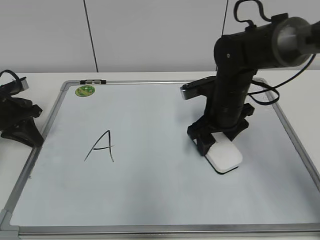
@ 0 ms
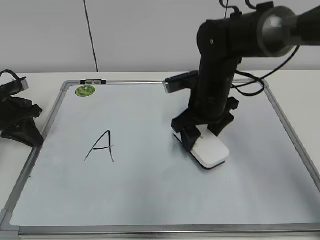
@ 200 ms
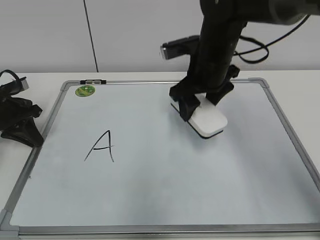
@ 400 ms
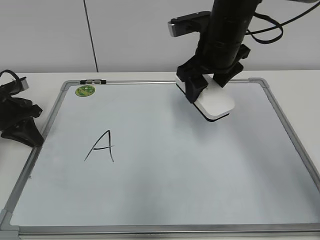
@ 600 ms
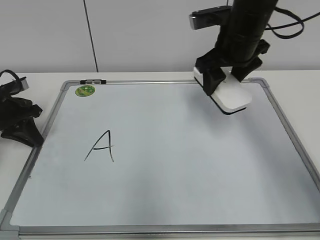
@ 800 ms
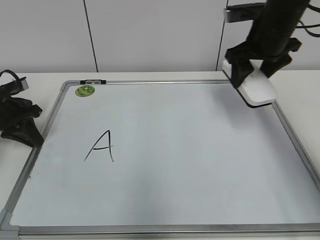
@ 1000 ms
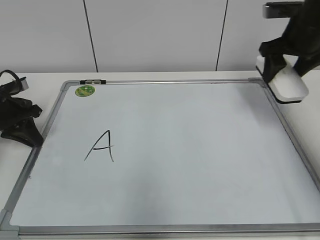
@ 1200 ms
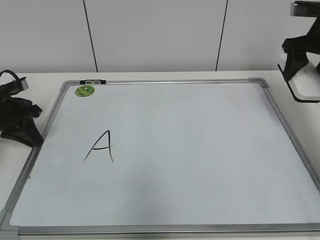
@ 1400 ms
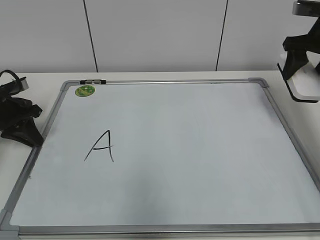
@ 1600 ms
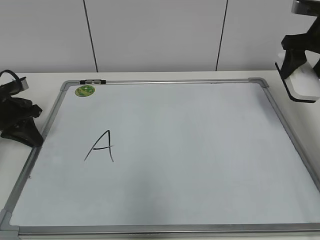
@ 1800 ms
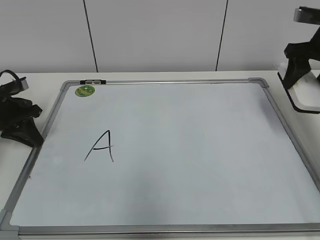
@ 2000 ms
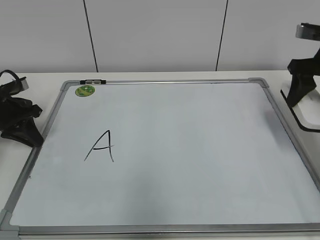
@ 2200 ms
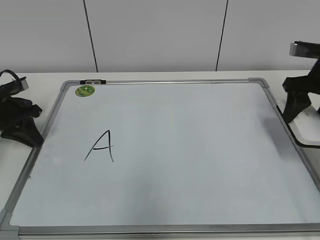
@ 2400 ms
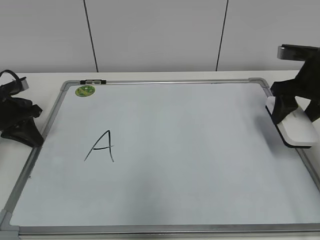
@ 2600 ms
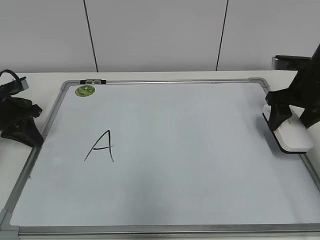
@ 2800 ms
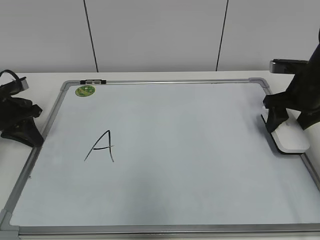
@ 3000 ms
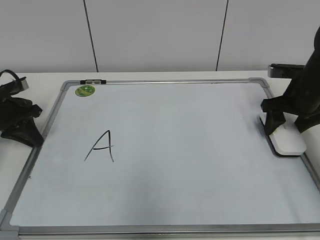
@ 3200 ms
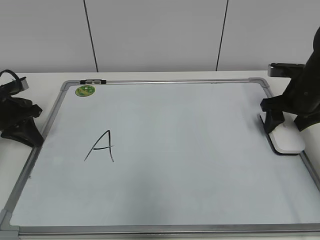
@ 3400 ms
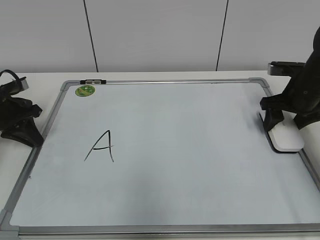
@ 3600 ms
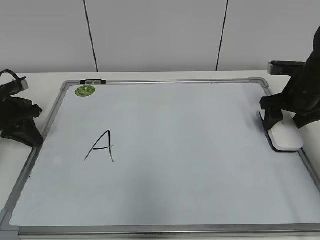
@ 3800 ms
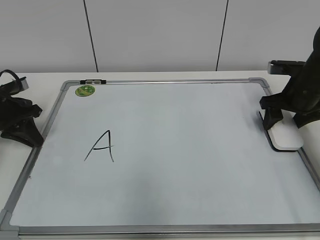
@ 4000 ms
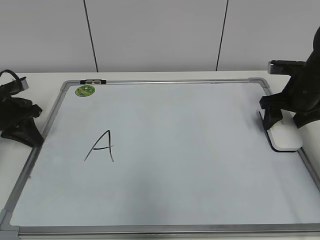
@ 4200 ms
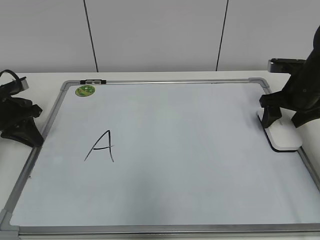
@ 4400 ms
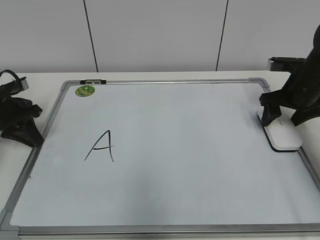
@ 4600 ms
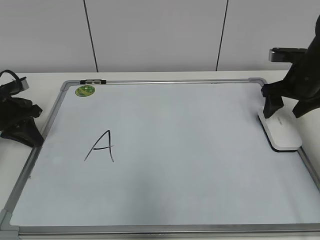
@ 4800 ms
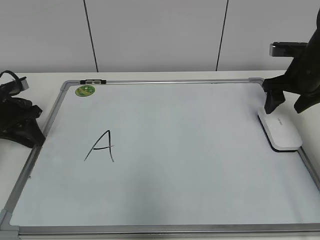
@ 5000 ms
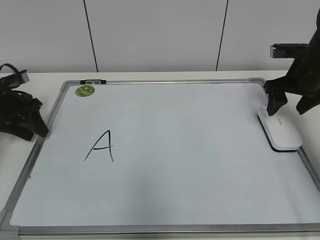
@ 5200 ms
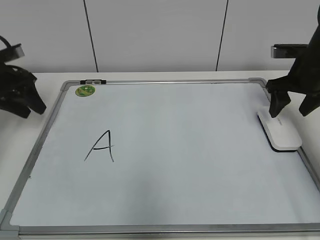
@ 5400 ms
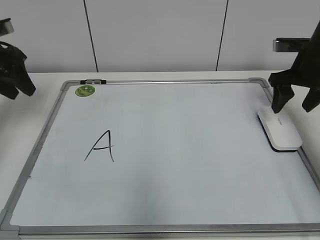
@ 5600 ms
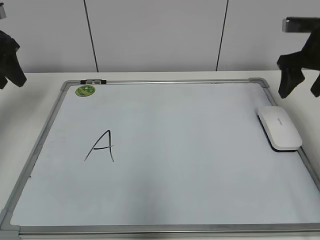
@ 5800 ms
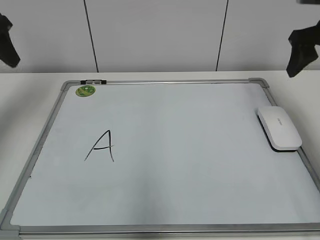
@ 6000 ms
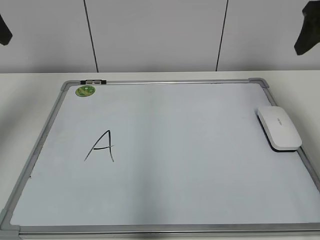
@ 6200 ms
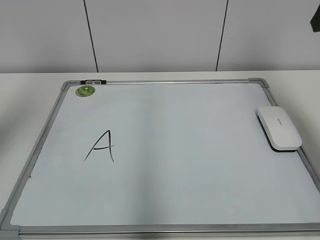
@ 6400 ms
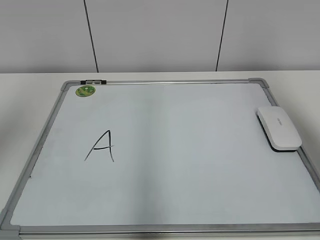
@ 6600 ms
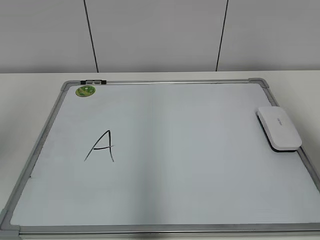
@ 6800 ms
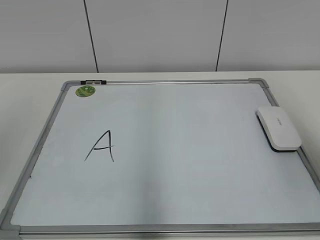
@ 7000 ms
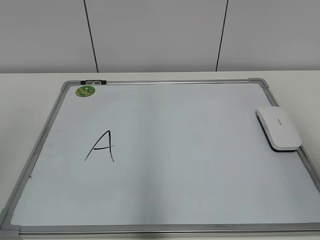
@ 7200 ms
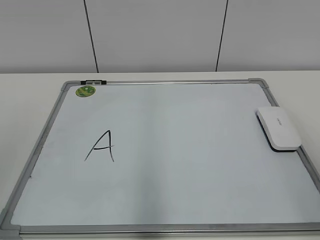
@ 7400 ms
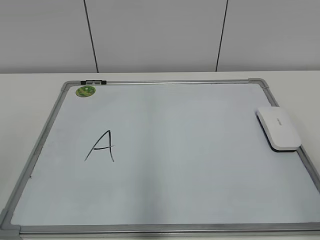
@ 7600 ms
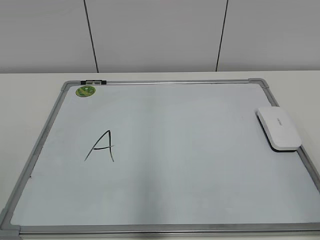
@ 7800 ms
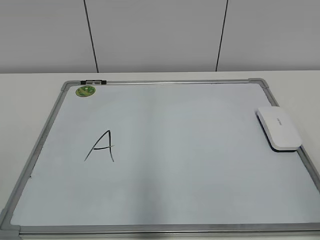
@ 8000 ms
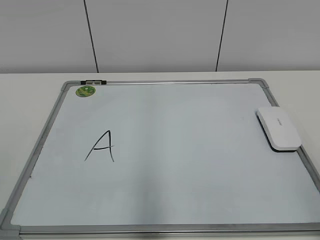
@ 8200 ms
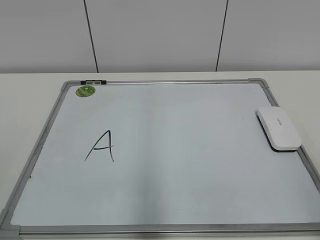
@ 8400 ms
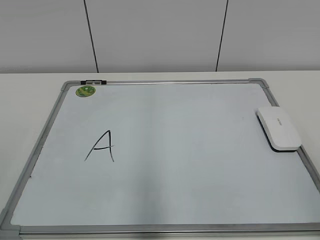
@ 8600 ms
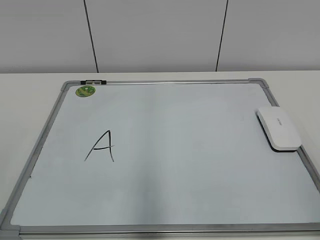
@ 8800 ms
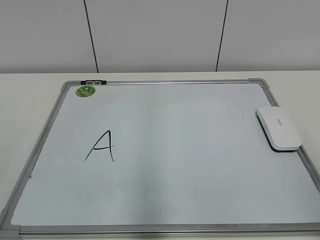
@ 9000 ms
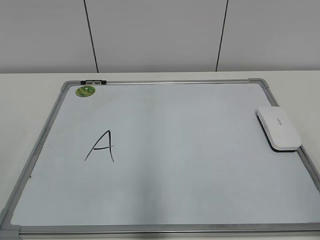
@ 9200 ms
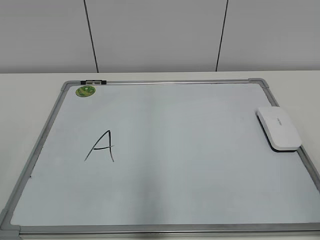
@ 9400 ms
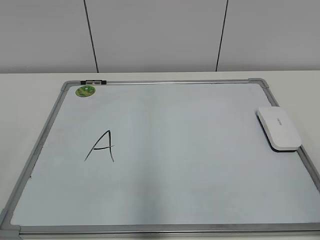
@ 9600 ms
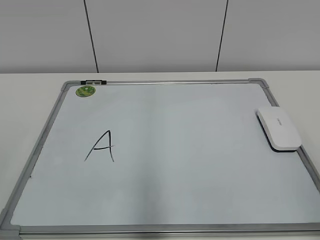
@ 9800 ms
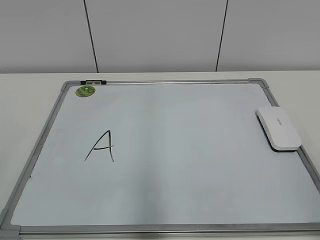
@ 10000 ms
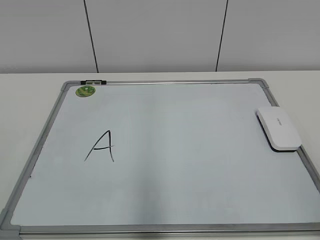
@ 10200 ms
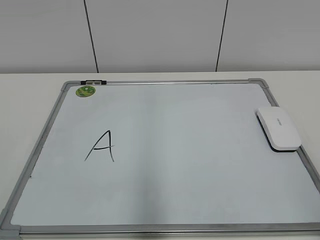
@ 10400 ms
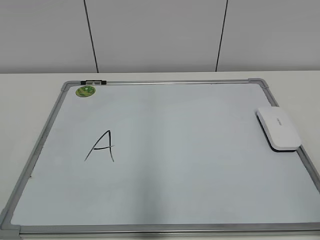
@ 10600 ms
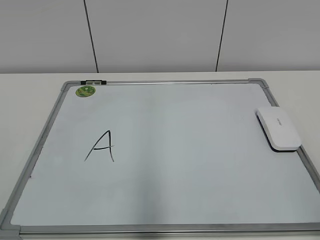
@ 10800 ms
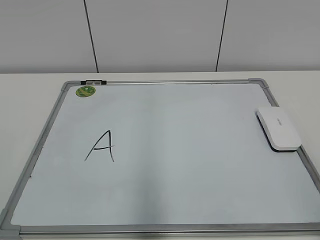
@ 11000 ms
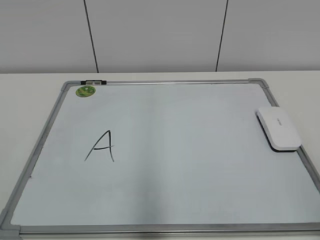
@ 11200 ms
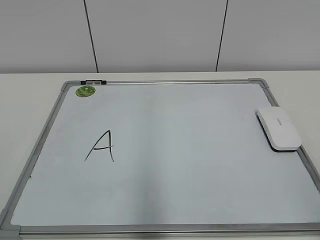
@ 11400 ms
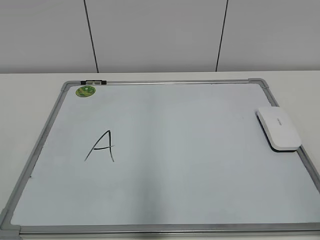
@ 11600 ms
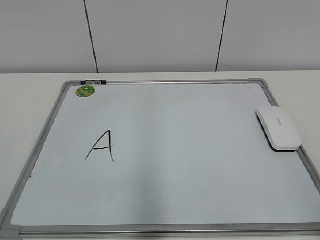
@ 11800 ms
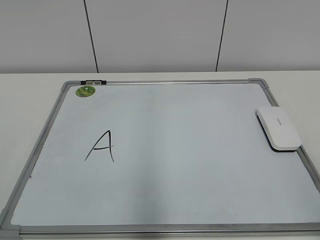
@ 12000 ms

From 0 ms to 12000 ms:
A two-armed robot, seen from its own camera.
Task of the whole recording: pick up the eraser on the blackboard and erase the letter "a".
Step, from 200 ms to 4600 ms: Put down the eraser with your right hand.
From 0 ms to 1600 ms: The right gripper moves to the right and upward, roughly 25 cm.
From 1600 ms to 3000 ms: The right gripper shifts about 10 cm downward.
From 3000 ms to 4400 ms: The grippers move only a little.
From 4400 ms to 6000 ms: Both grippers travel together upward, about 20 cm. The left gripper opens up.
From 6000 ms to 7600 ms: Both grippers move backward, approximately 35 cm.
From 10400 ms to 12000 ms: Both grippers stay about where they are.

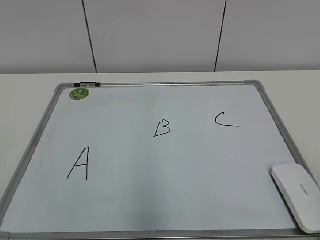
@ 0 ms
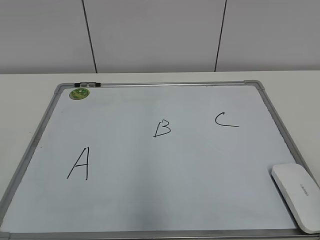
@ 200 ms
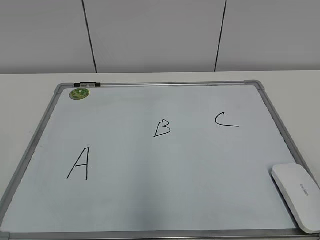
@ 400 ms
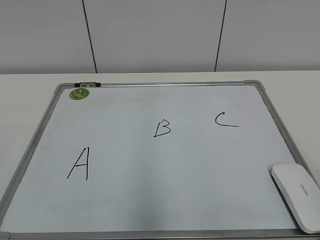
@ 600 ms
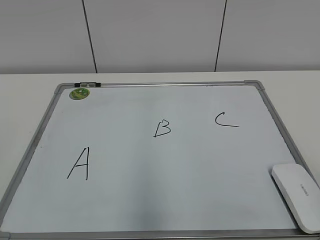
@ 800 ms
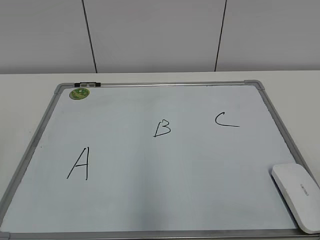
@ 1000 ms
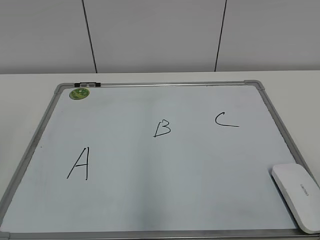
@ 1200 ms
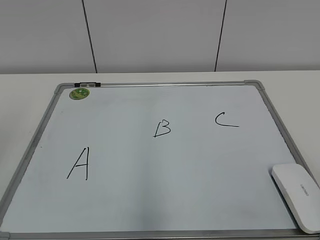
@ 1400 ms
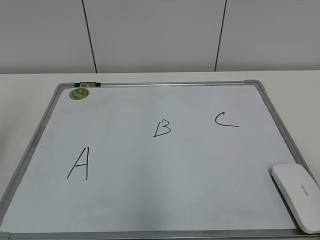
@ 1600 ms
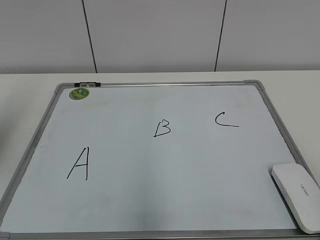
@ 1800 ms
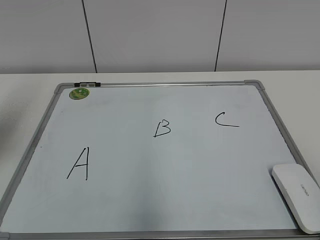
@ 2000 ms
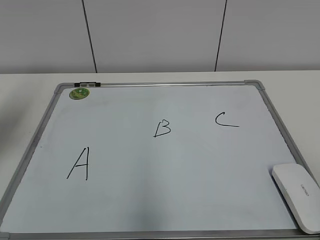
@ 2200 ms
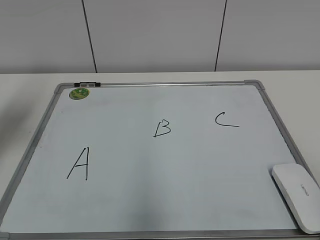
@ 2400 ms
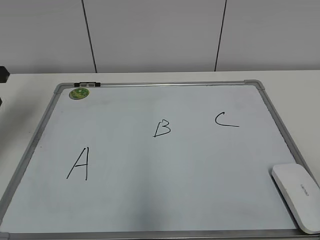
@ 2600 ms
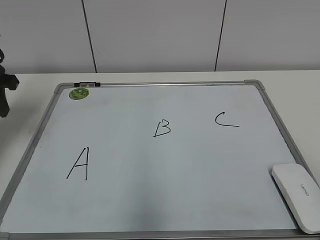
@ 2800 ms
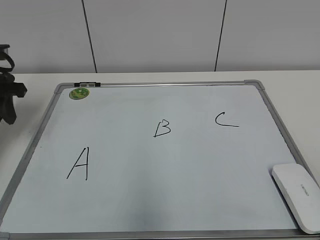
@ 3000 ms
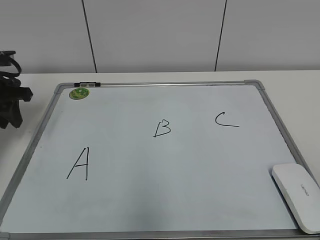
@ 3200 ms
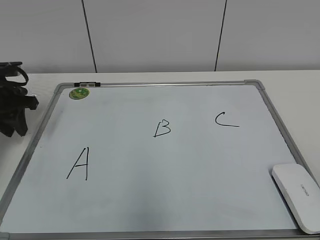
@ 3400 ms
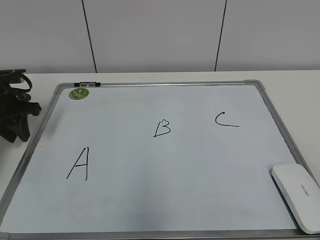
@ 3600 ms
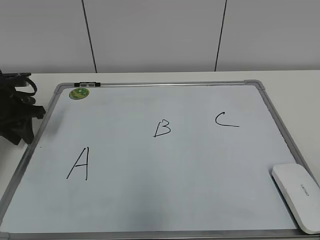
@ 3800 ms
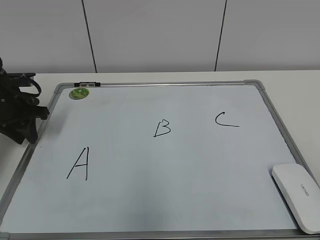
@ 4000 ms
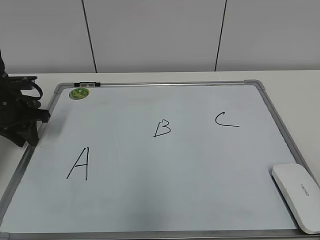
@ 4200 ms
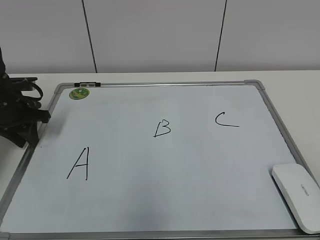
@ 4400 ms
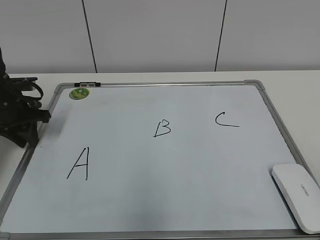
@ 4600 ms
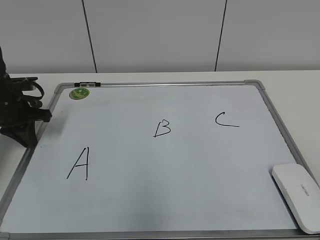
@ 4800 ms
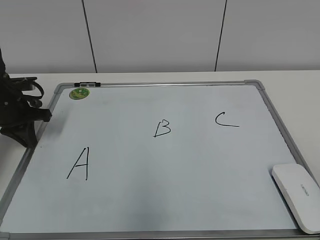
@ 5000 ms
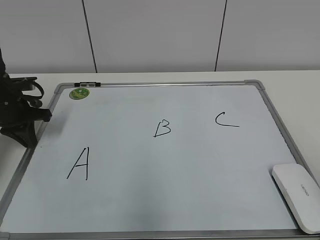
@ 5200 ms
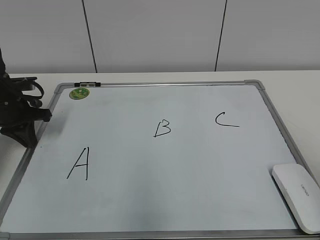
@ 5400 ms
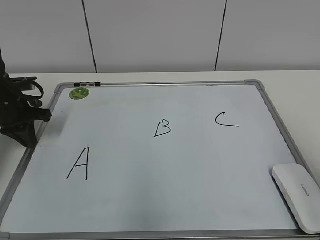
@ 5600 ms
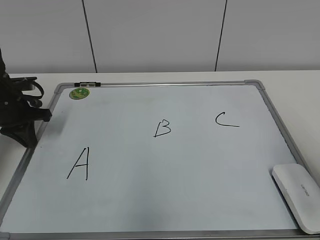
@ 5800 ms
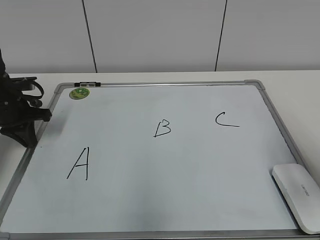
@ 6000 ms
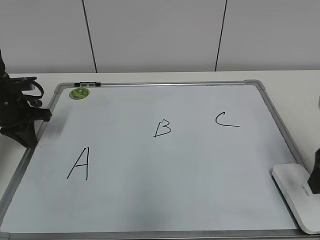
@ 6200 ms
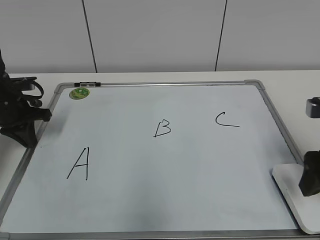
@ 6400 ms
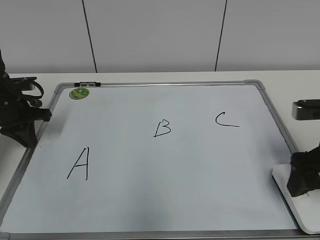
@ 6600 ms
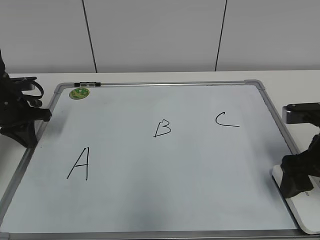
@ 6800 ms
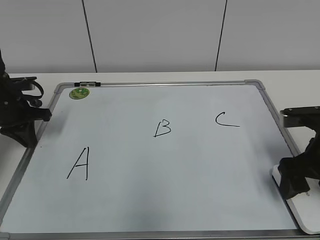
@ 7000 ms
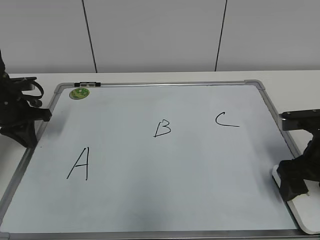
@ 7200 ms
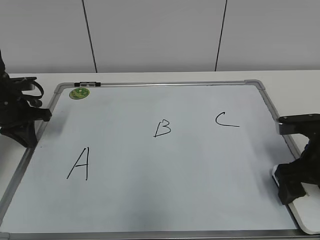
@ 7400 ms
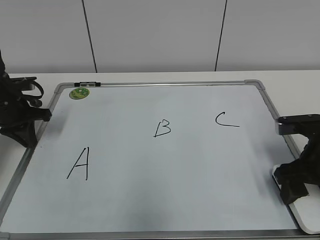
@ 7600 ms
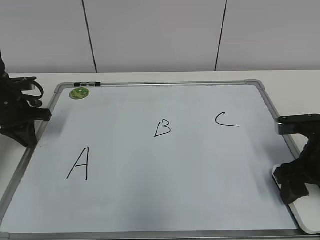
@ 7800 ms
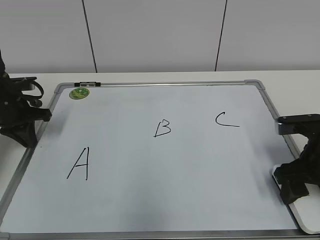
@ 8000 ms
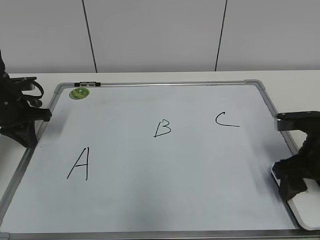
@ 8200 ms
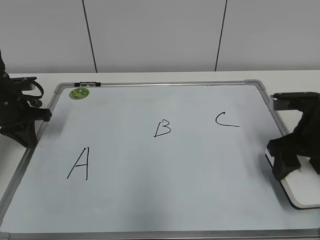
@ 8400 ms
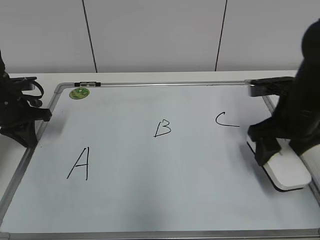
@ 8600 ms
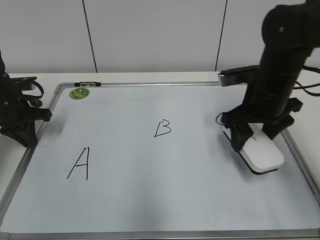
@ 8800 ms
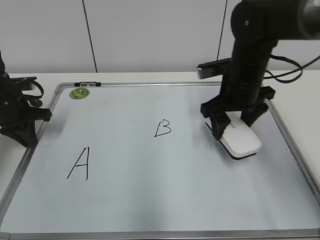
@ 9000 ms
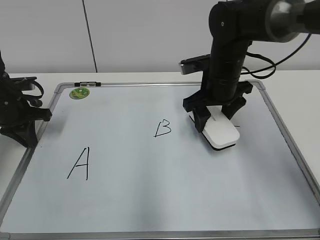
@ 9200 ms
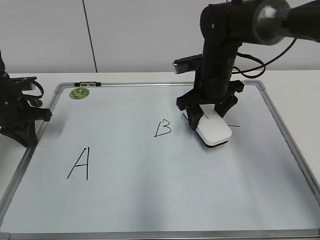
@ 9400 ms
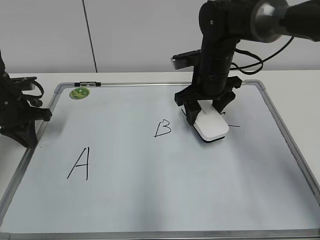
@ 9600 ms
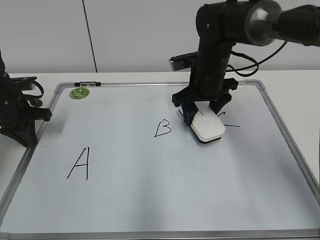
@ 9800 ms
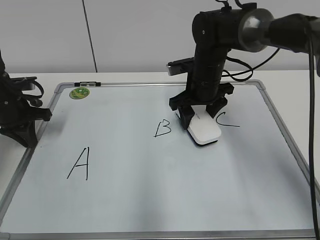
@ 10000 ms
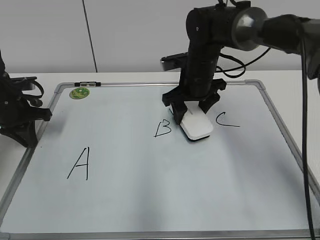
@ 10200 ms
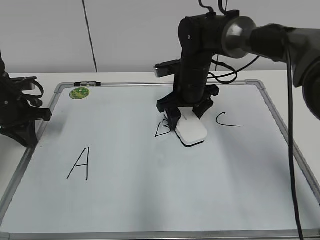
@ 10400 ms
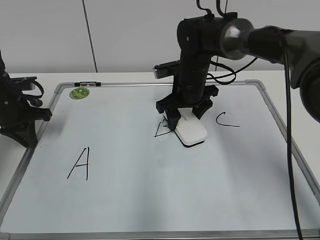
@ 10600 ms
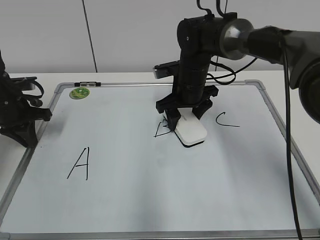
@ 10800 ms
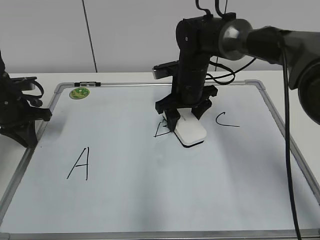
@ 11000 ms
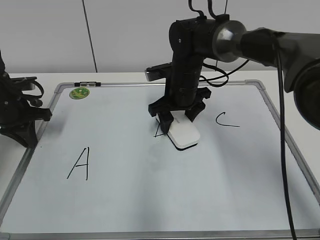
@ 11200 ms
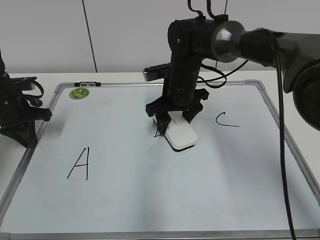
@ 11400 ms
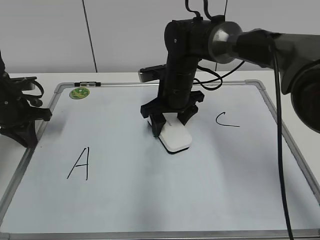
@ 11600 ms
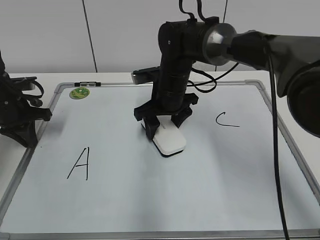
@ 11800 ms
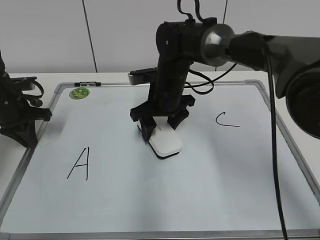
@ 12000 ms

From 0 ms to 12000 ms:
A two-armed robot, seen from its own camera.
Task of the whole recording: pick up the eraser on the blackboard and erase the letter "B".
Step, from 0 ms to 4600 ms: Hold the drawing board steady with your left hand.
Step, from 5000 ms to 7800 ms: Grab the eraser with your right hand.
From 1600 ms to 3000 ms: The left gripper is displaced forward and downward by roughly 20 cm.
From 3000 ms to 4400 ms: The left gripper is displaced downward by some 10 cm.
From 4400 ms to 6000 ms: The right gripper shifts roughly 20 cm forward, and opens, while the left gripper closes its fingers.
From 6000 ms to 7600 ms: The right gripper heads downward and forward, covering some 10 cm, and closes its fingers.
From 7600 ms to 9000 ms: The right gripper moves forward, to the left and upward, some 15 cm, and closes up.
From 9000 ms to 10400 ms: The right gripper goes approximately 10 cm to the left and forward.
From 10400 ms to 12000 ms: The right gripper shifts approximately 5 cm to the left.
